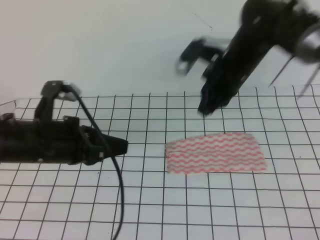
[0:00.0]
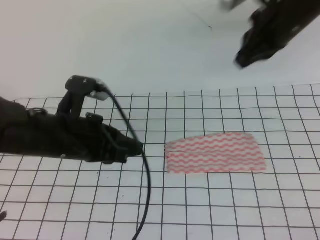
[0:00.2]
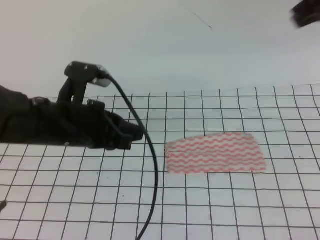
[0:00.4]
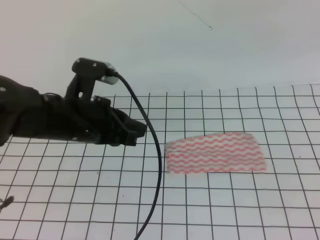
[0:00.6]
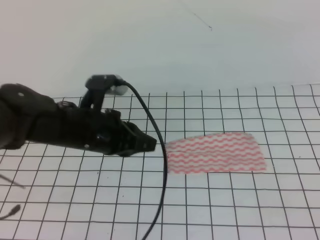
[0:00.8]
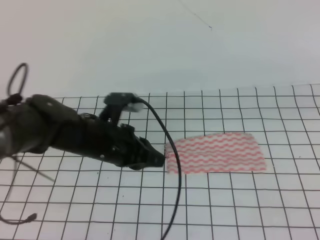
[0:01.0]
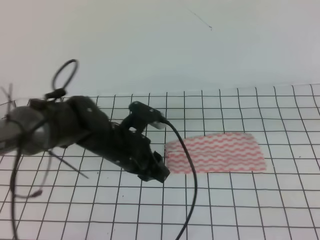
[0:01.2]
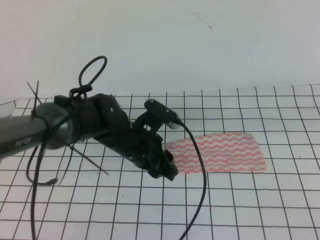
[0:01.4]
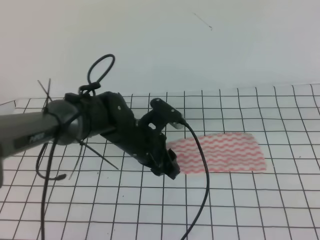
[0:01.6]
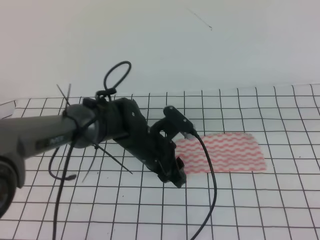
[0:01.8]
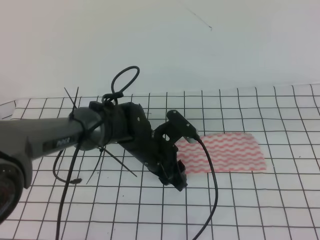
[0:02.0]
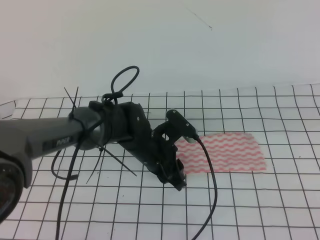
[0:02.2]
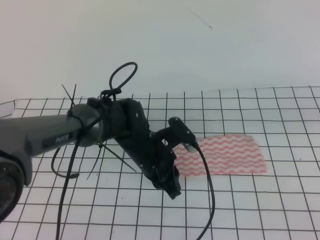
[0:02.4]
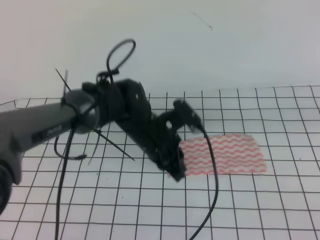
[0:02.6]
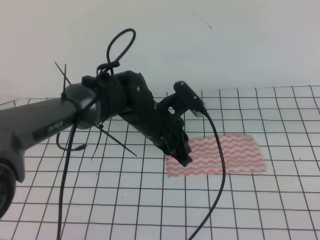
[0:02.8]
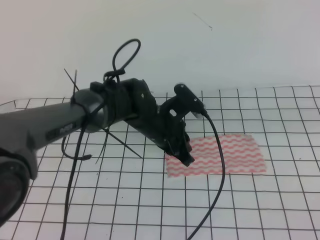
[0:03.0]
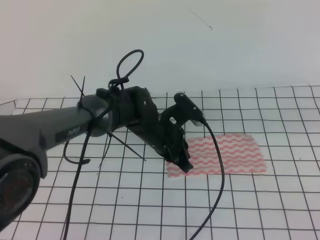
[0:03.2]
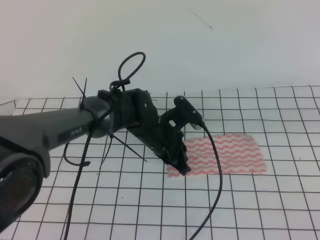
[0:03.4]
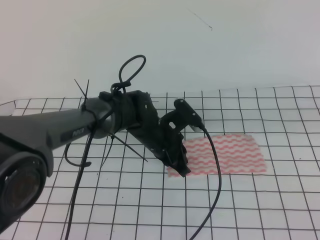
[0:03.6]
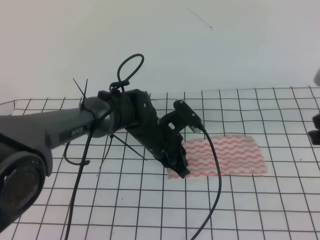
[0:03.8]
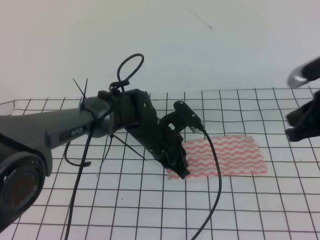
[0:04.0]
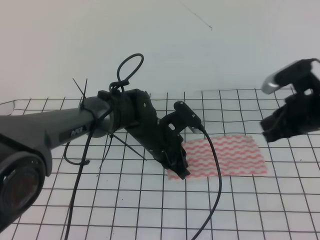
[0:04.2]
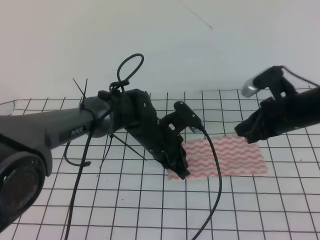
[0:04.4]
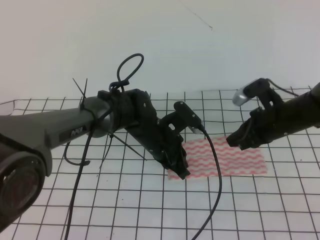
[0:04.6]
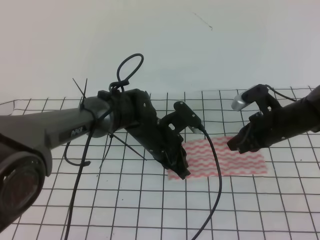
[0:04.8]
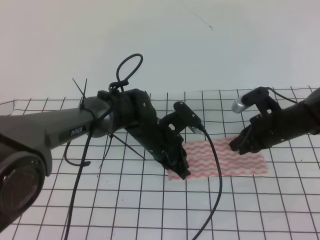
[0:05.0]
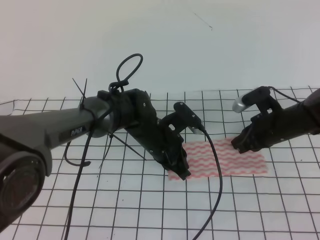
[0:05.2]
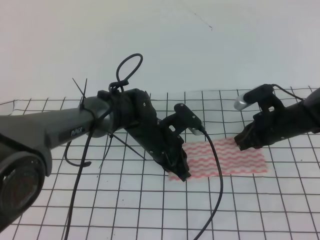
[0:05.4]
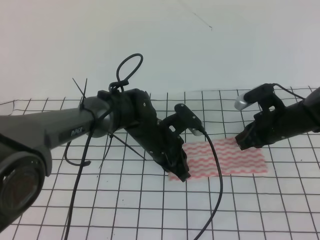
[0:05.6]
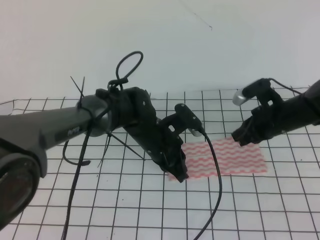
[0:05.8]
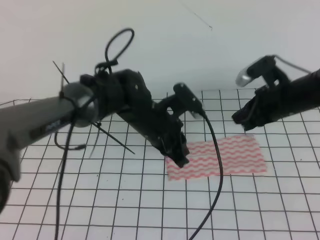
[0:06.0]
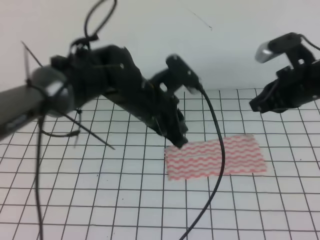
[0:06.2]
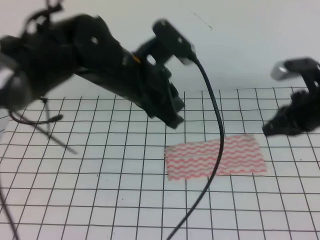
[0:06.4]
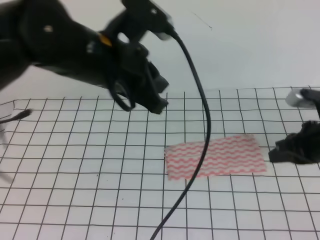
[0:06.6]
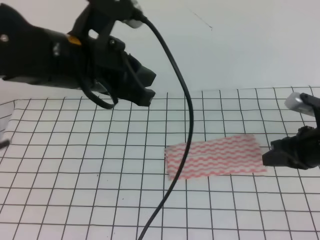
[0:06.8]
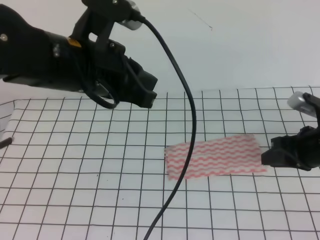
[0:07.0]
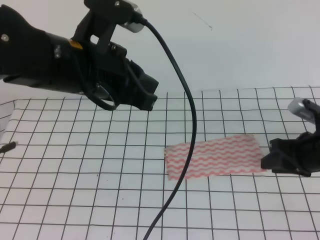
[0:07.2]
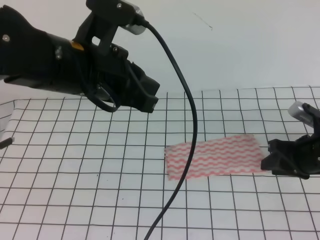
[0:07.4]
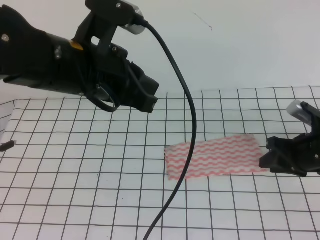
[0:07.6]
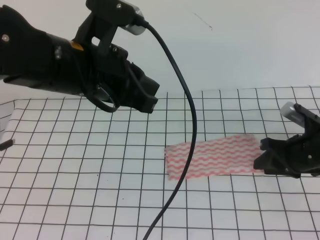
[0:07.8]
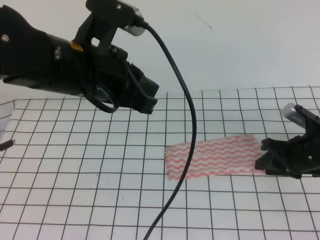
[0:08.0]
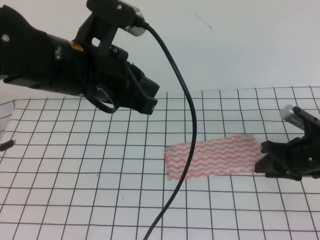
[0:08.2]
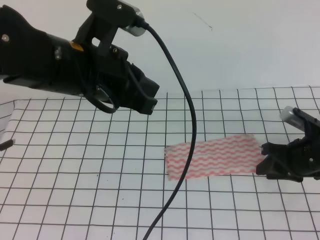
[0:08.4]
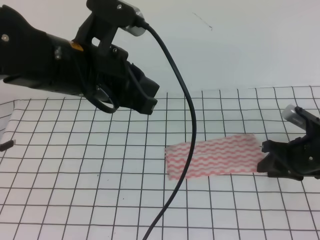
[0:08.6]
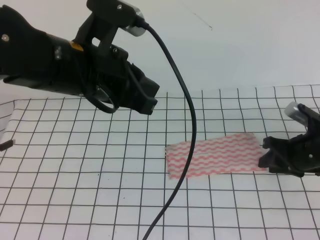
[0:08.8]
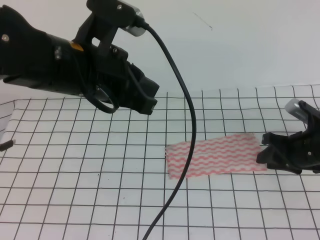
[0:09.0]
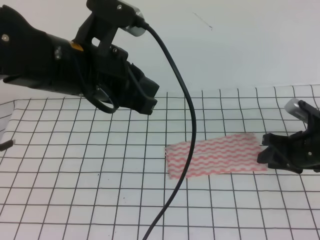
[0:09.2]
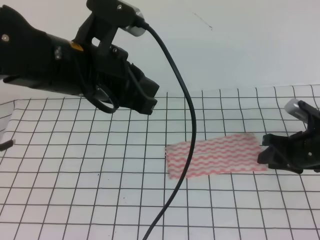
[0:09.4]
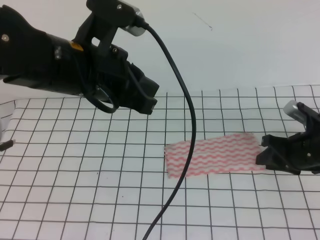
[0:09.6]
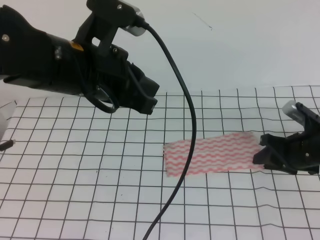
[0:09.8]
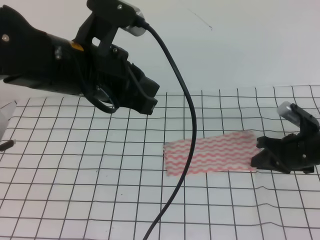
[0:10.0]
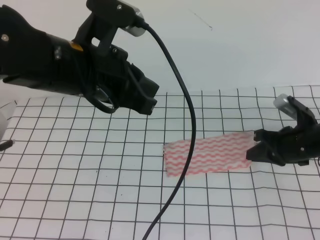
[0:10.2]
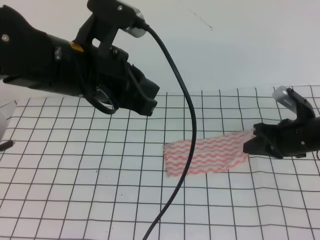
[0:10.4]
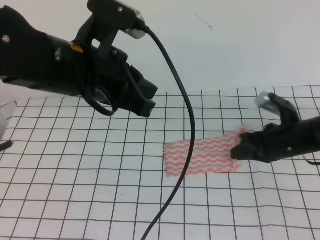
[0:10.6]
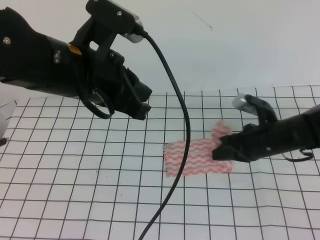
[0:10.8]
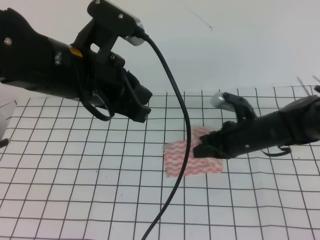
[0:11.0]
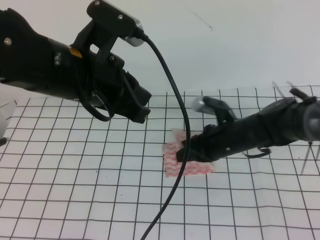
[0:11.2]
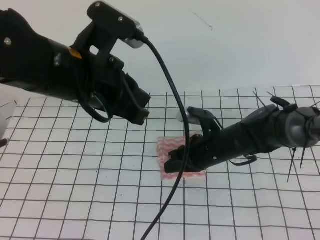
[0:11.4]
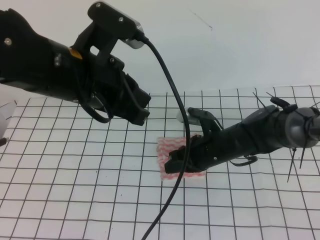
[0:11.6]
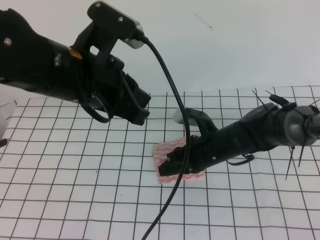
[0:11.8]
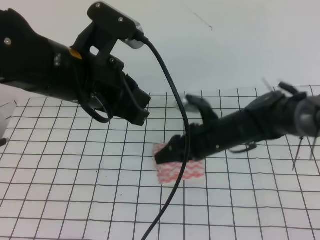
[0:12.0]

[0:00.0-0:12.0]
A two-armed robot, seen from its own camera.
0:00.0 to 0:01.6: The left gripper goes about 15 cm to the right, downward and forward, and opens. Meanwhile the right gripper goes approximately 25 cm backward and to the right.
0:01.6 to 0:03.0: The left gripper closes up.
0:03.0 to 0:04.4: The right gripper travels forward, downward and to the left by about 20 cm.
0:04.4 to 0:06.0: The left gripper is displaced upward by approximately 5 cm.
0:06.0 to 0:07.6: The left gripper goes roughly 20 cm upward, to the left and backward; the right gripper heads backward and downward, covering some 10 cm, and opens its fingers.
0:07.6 to 0:09.0: The grippers stay close to where they were, moving slightly.
0:09.0 to 0:10.4: The right gripper closes up.
0:10.4 to 0:12.0: The right gripper shifts some 15 cm to the left, and opens.

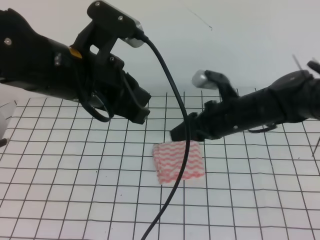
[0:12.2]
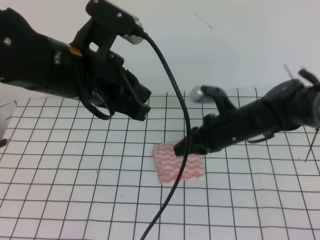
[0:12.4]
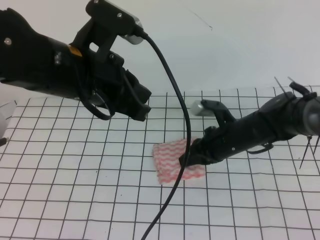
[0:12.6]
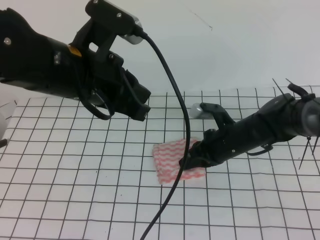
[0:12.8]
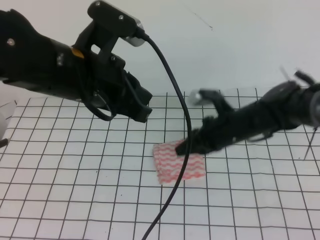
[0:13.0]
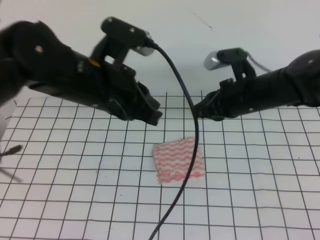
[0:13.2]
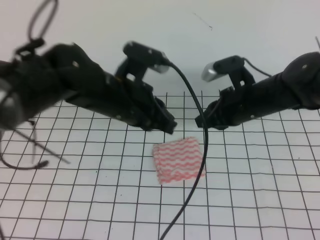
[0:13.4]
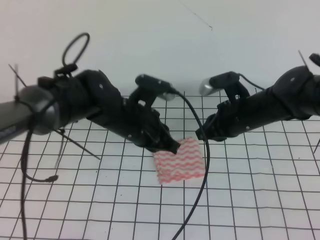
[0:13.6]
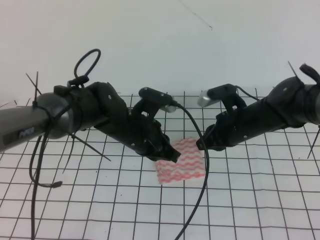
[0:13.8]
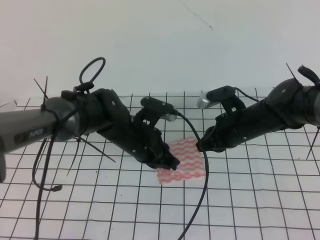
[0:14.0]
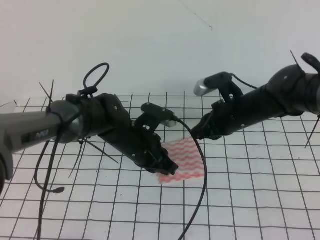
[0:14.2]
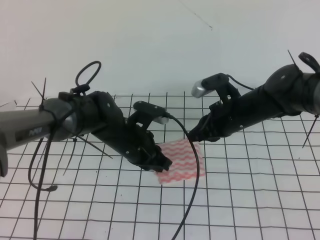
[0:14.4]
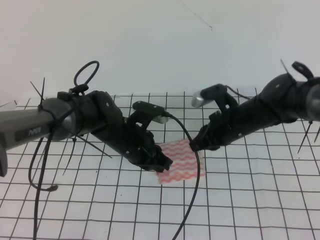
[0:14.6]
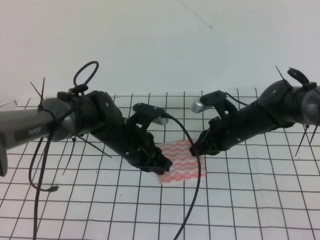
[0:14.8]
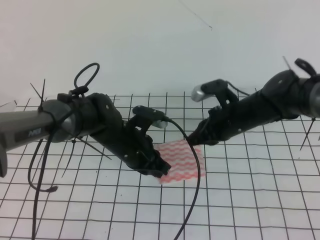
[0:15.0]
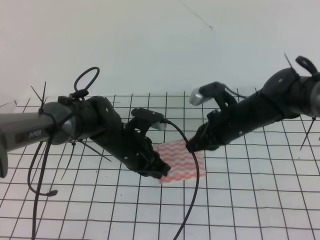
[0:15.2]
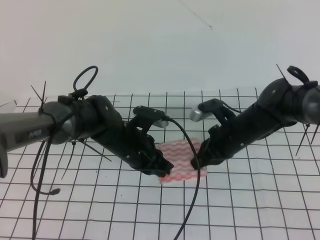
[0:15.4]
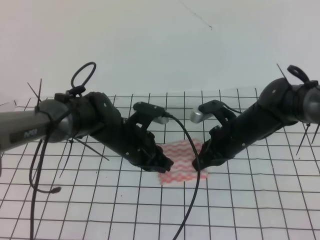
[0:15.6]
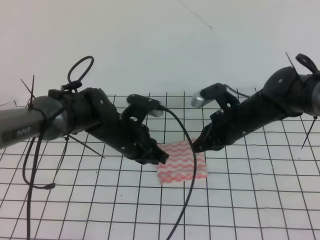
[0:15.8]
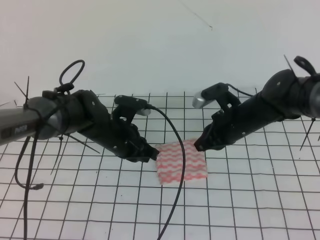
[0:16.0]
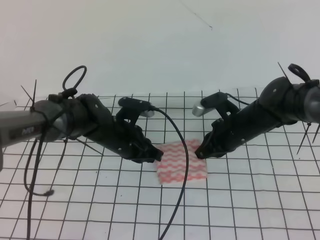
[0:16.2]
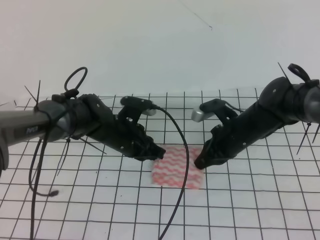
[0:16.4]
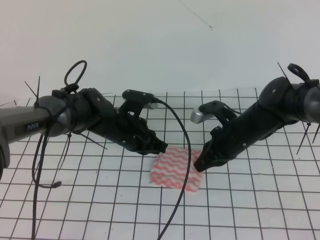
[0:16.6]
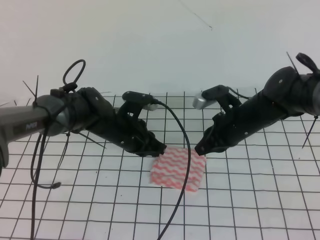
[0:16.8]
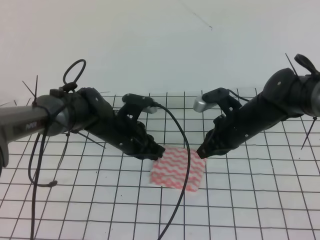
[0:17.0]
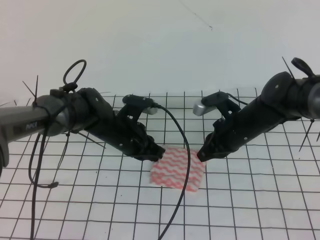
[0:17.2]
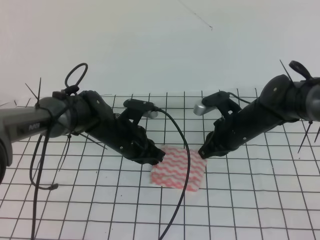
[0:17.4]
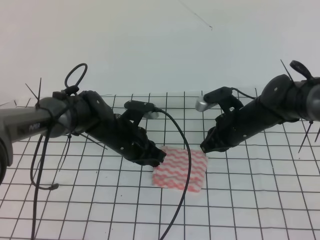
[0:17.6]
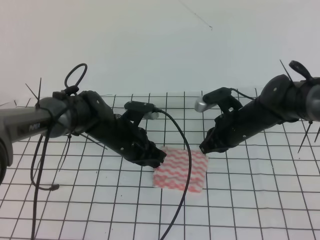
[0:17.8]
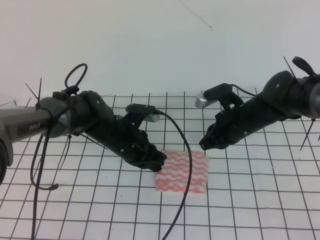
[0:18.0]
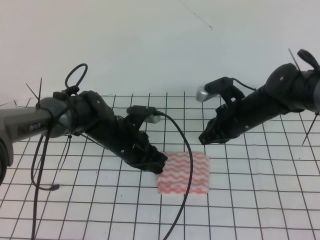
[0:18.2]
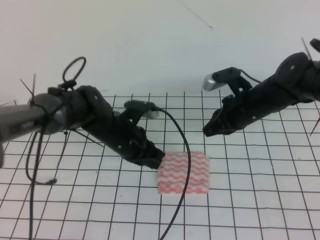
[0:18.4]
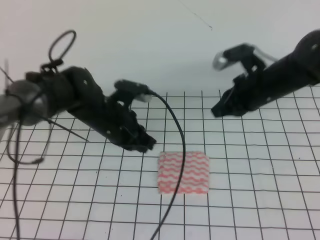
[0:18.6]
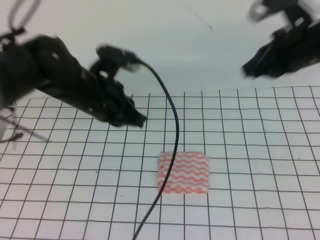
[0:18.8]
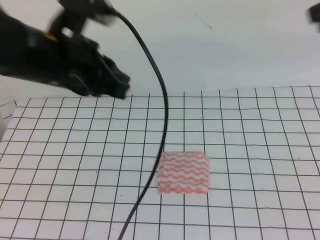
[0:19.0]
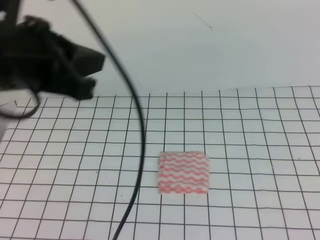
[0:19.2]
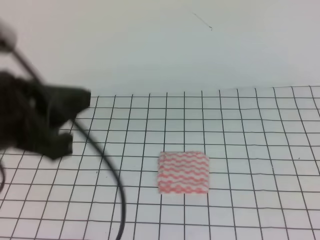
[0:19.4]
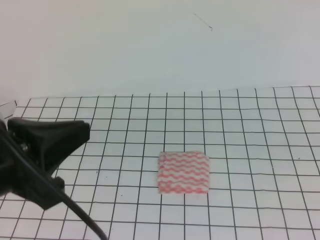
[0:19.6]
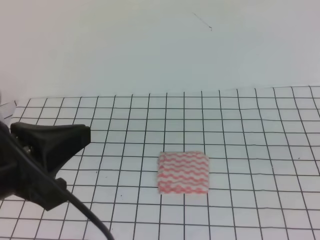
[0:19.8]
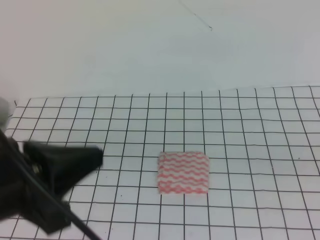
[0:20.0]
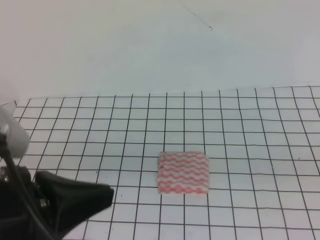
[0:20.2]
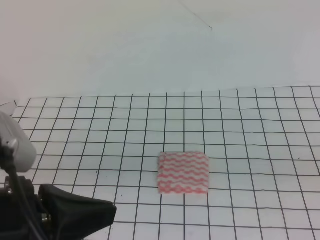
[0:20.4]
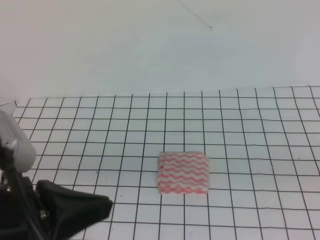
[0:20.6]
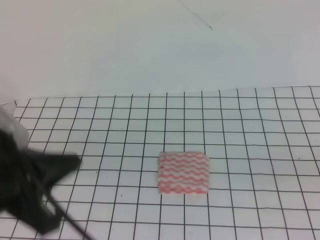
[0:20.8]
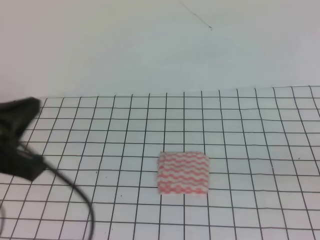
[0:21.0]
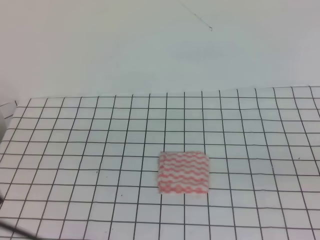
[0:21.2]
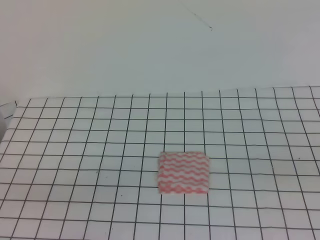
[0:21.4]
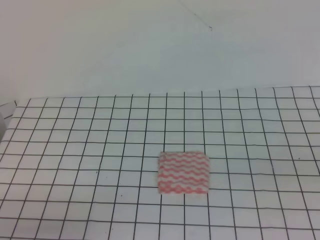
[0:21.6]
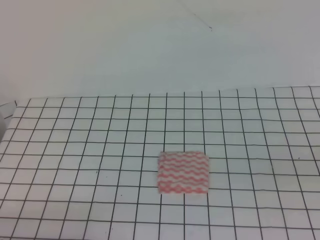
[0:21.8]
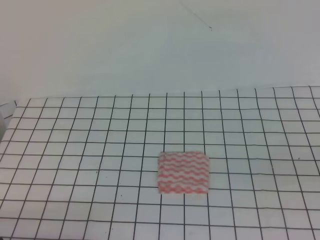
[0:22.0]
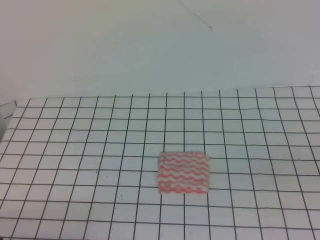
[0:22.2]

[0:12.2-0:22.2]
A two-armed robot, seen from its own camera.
0:12.2 to 0:13.6: The left gripper shifts approximately 15 cm downward and forward. The right gripper goes downward and returns, some 5 cm each way, and closes its fingers.
0:13.6 to 0:15.0: The left gripper shifts approximately 10 cm downward.
0:15.0 to 0:18.0: The grippers stay close to where they were, moving slightly.
0:18.0 to 0:19.4: The left gripper is displaced upward and backward by about 35 cm; the right gripper shifts roughly 40 cm upward, backward and to the right.
0:19.4 to 0:20.8: The right gripper moves downward and backward, about 10 cm. The left gripper shifts some 5 cm downward.
0:20.8 to 0:22.2: The left gripper is displaced downward, to the left and backward by about 20 cm.
